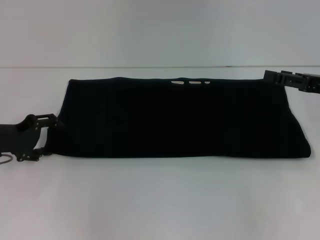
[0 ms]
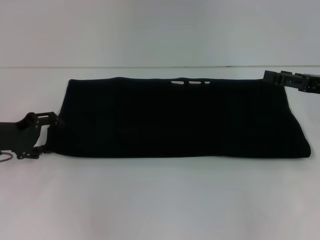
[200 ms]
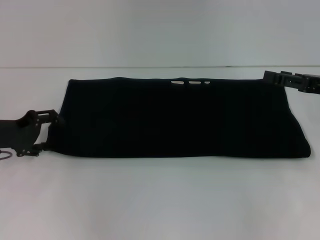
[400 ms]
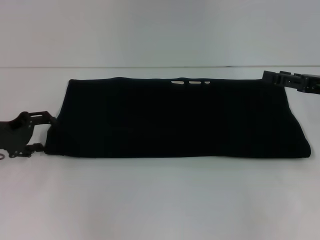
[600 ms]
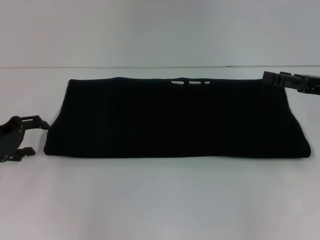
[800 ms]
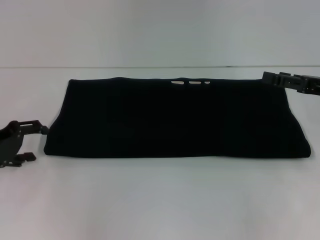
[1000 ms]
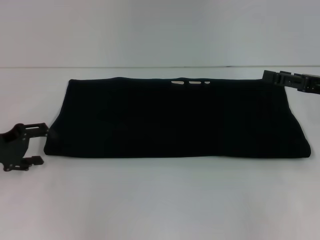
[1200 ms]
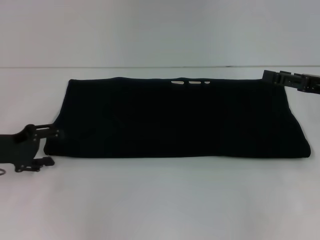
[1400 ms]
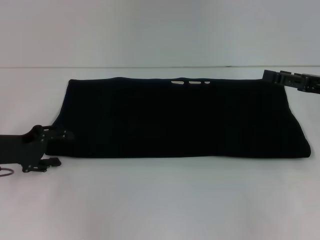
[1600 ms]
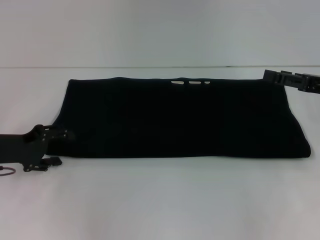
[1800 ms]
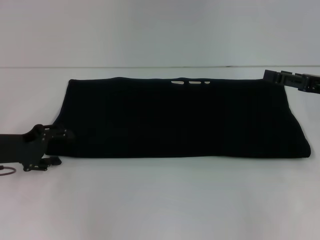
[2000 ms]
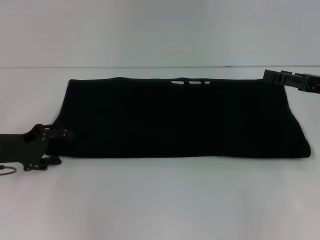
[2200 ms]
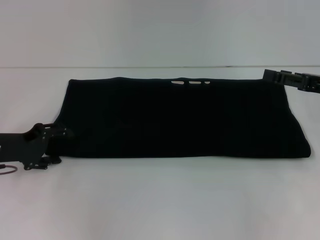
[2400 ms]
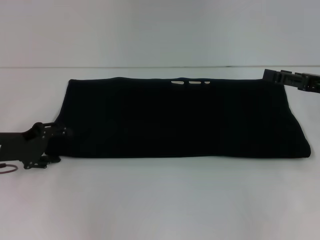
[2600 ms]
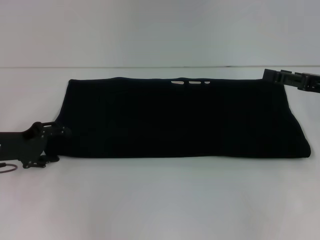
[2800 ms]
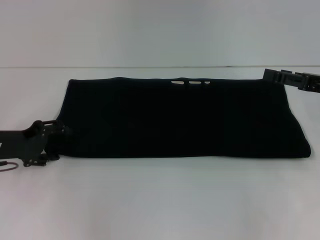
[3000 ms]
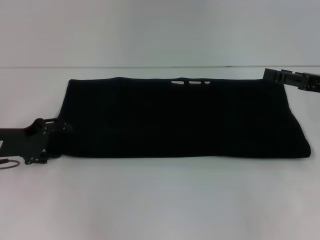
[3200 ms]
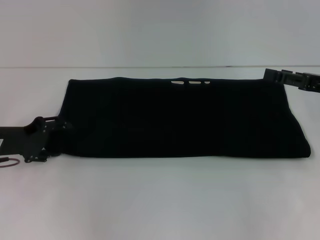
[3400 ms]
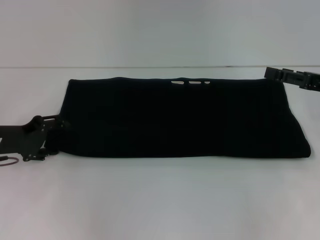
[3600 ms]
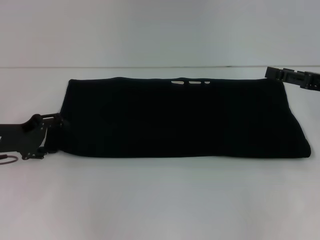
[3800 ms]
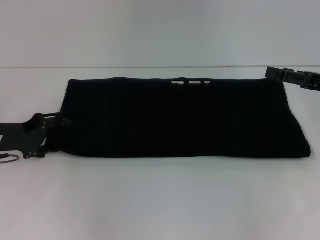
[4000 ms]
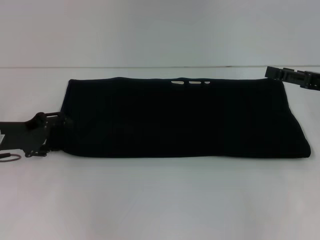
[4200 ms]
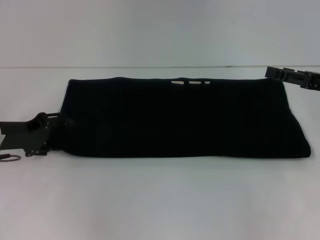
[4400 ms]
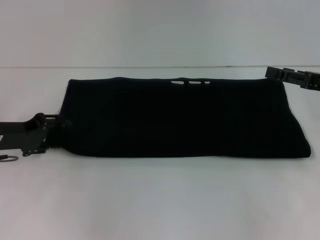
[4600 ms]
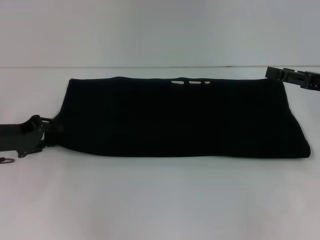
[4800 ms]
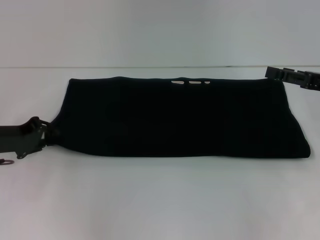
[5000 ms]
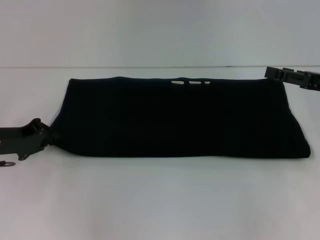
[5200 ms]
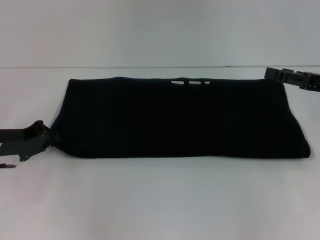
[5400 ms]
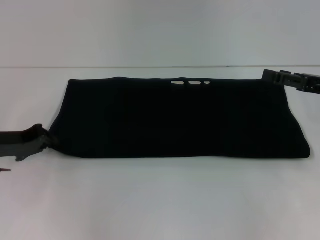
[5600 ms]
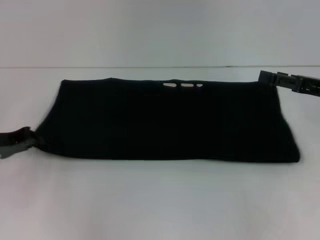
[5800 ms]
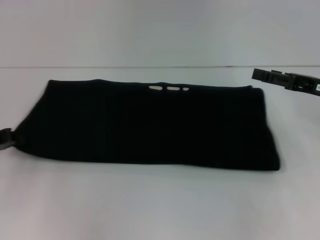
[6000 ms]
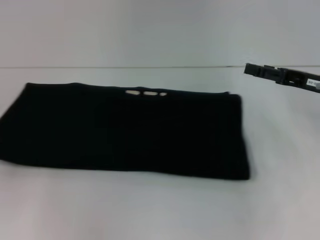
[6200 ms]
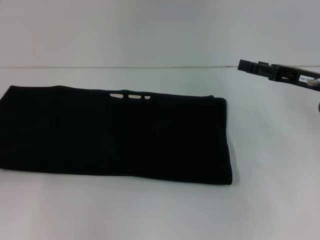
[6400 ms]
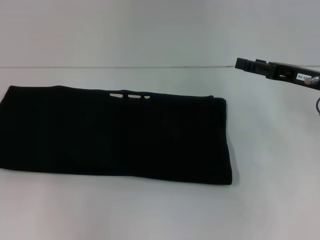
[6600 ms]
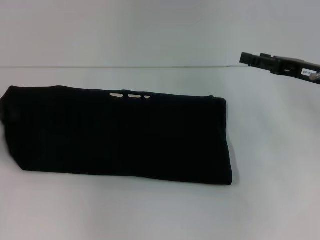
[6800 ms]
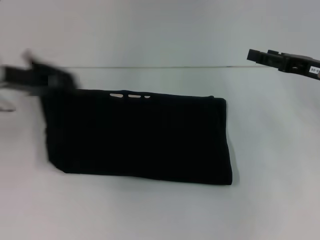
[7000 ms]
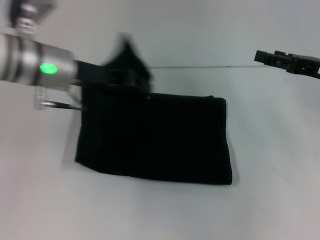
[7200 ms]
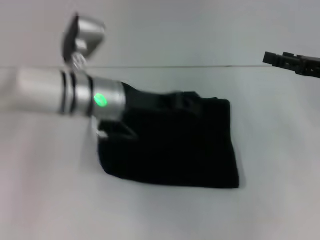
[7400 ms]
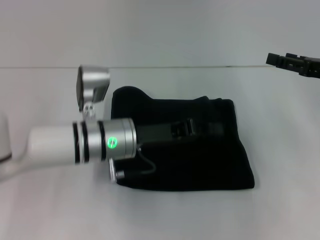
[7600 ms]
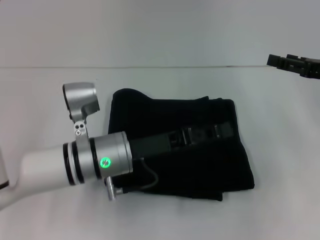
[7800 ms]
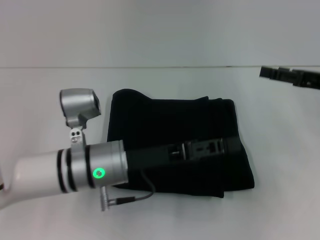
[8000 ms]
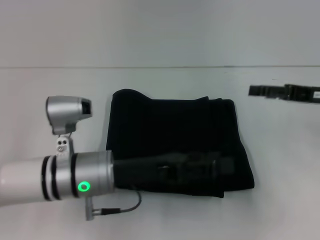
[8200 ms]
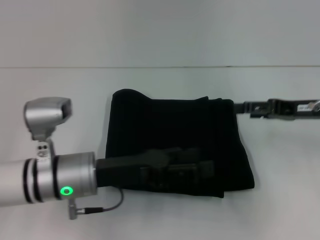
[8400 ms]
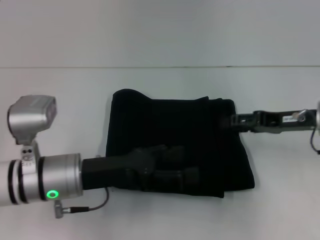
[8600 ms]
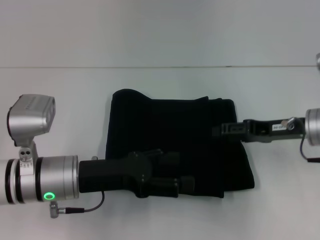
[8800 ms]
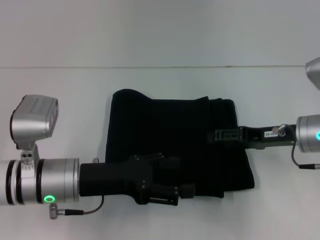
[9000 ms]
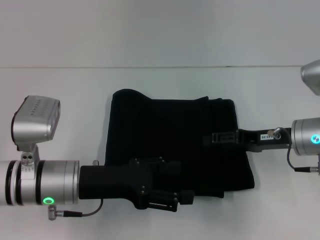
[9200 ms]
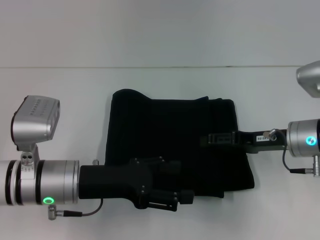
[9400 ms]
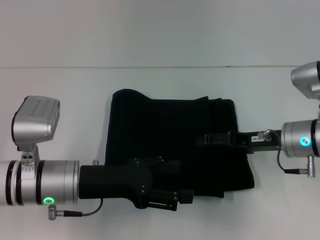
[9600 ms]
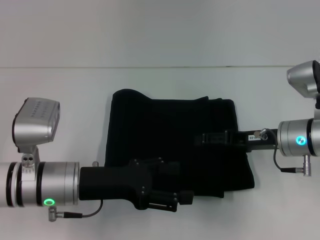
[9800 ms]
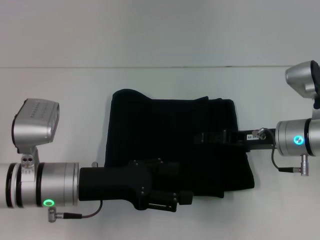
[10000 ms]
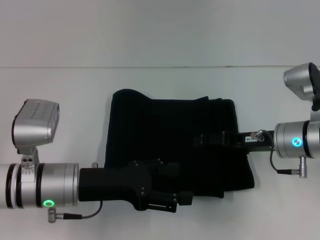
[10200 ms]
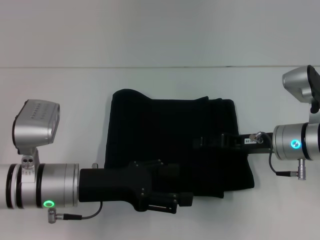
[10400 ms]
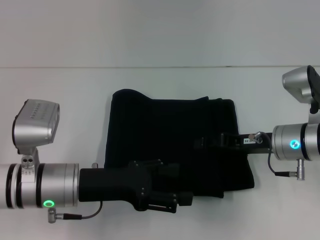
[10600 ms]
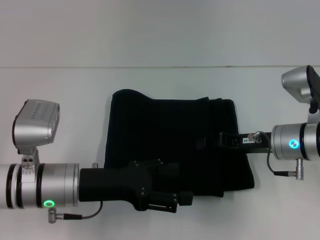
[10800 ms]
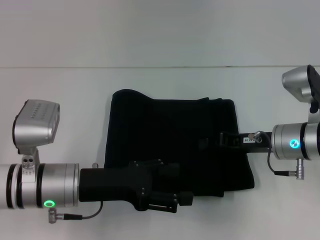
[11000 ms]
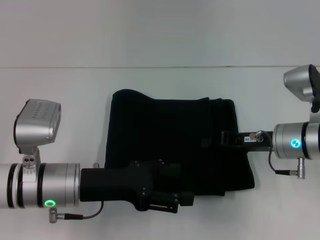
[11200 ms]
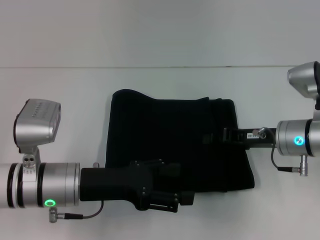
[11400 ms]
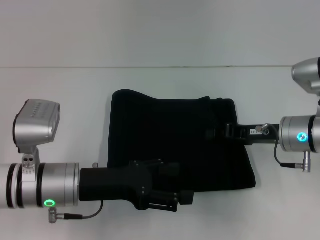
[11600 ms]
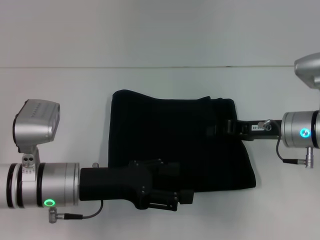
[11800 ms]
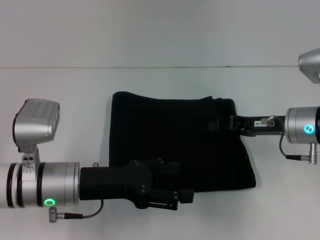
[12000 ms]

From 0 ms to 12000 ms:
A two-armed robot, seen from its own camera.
Step, from 0 ms to 7800 ms: Fold the clothes with your left hand.
From 0 ms to 1600 ms: The grippers stay close to where they were, moving slightly.
From 1600 ms to 3000 ms: Both grippers stay about where they are.
From 3000 ms to 4400 ms: There are only small adjustments of the grippers.
From 4400 ms to 6000 ms: The left gripper ends up roughly 5 cm from where it was, and closes up.
From 6000 ms to 7600 ms: The left gripper heads to the right, covering roughly 25 cm.
From 7600 ms to 9000 ms: The left gripper shifts about 10 cm to the left and backward, and opens its fingers; the right gripper goes some 10 cm to the left and downward.
From 9000 ms to 10400 ms: There are only small adjustments of the grippers.
From 10400 ms to 12000 ms: The right gripper closes.

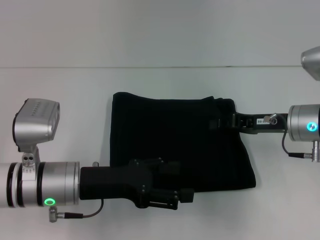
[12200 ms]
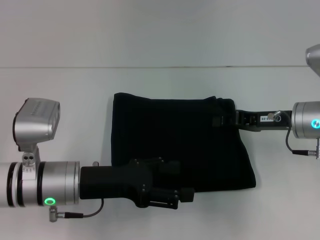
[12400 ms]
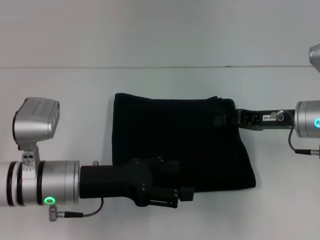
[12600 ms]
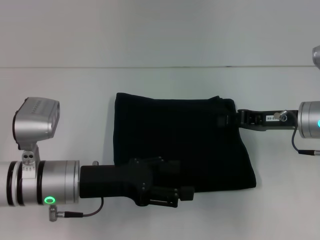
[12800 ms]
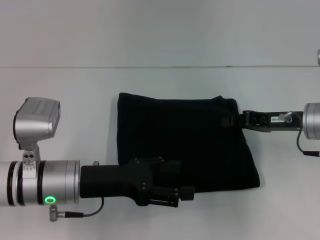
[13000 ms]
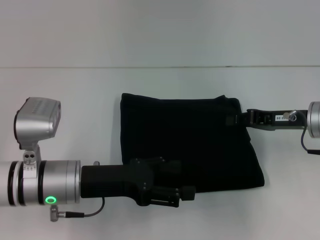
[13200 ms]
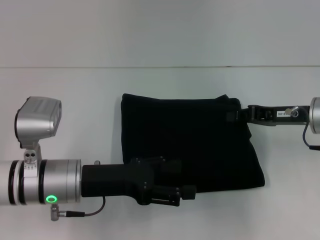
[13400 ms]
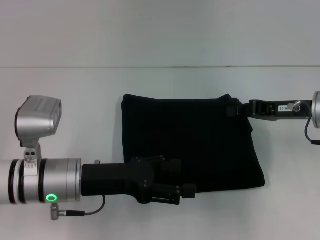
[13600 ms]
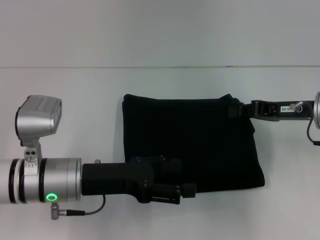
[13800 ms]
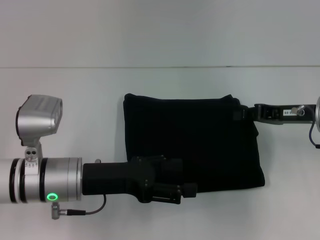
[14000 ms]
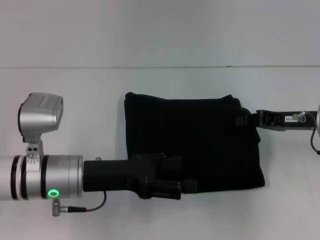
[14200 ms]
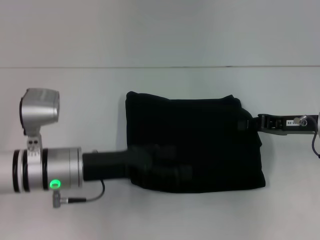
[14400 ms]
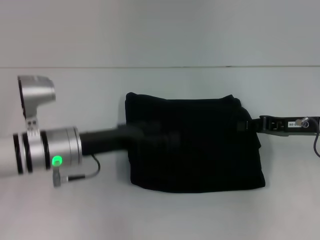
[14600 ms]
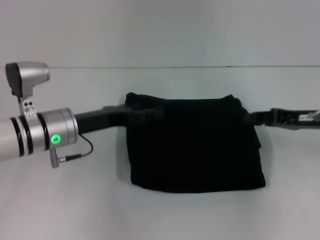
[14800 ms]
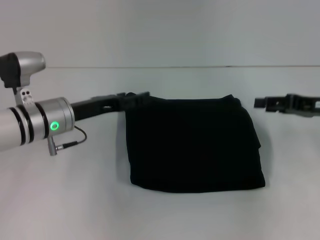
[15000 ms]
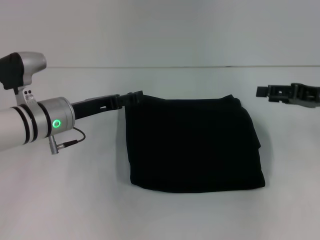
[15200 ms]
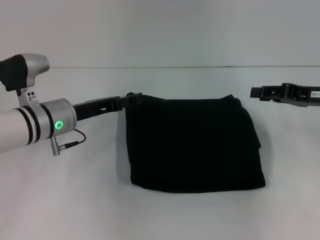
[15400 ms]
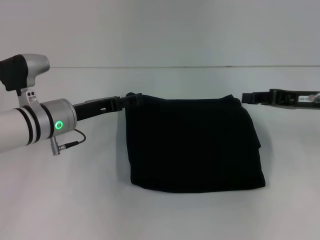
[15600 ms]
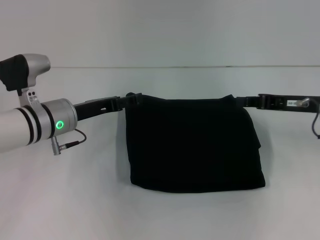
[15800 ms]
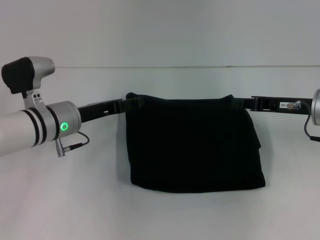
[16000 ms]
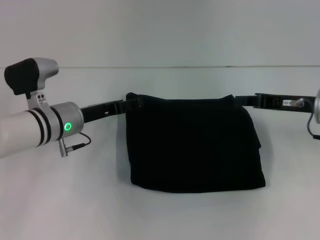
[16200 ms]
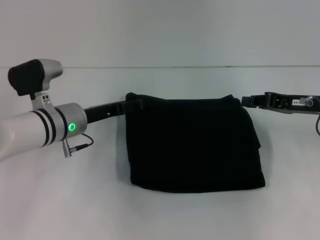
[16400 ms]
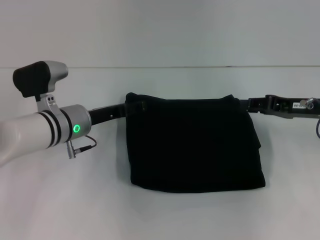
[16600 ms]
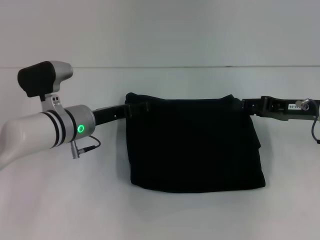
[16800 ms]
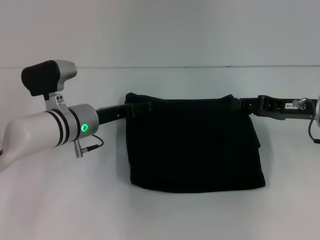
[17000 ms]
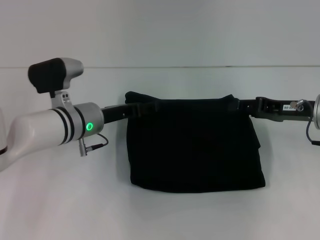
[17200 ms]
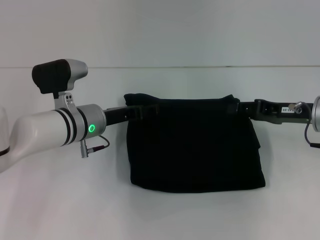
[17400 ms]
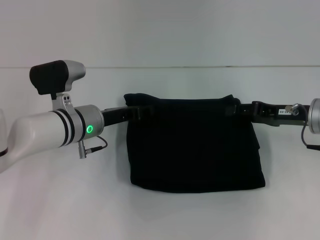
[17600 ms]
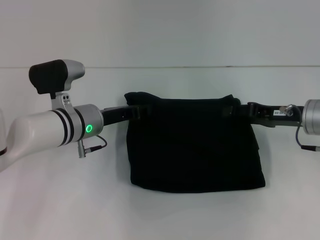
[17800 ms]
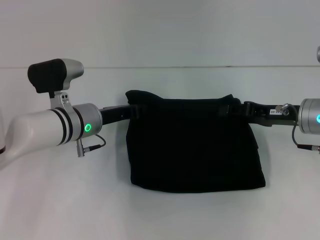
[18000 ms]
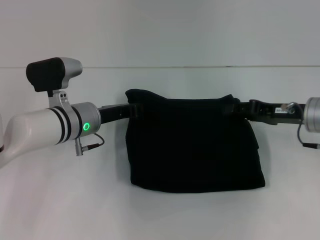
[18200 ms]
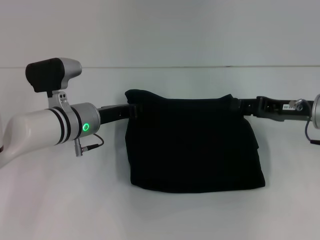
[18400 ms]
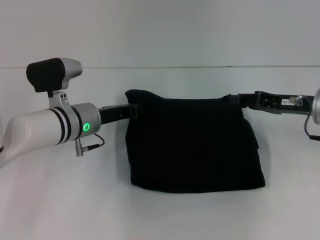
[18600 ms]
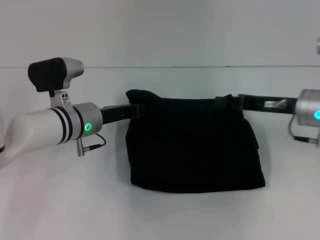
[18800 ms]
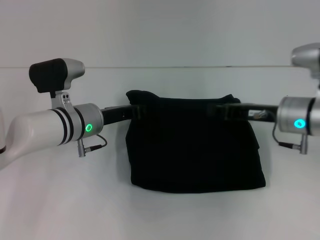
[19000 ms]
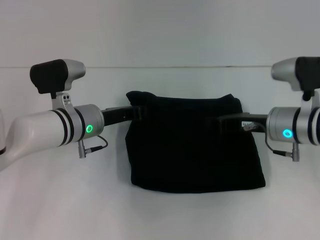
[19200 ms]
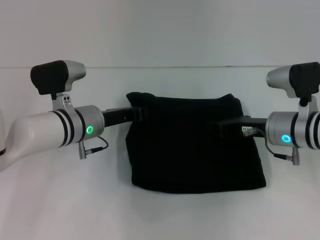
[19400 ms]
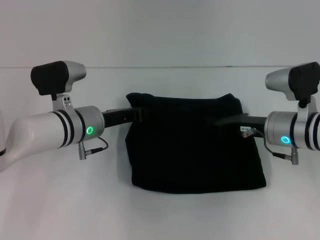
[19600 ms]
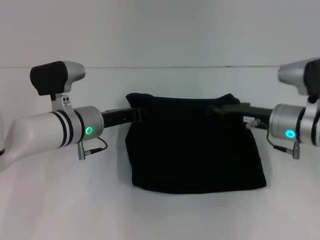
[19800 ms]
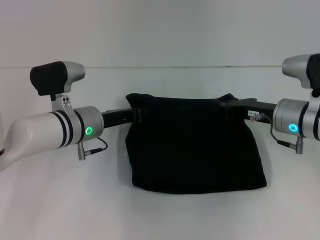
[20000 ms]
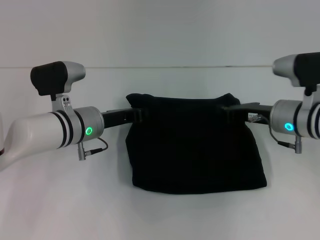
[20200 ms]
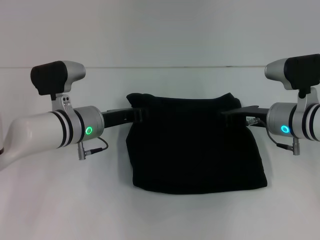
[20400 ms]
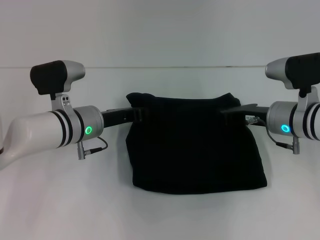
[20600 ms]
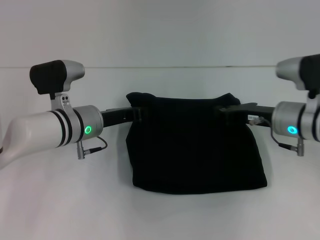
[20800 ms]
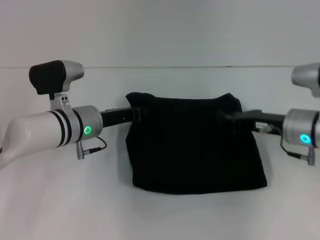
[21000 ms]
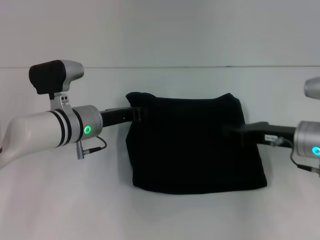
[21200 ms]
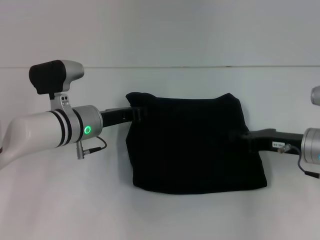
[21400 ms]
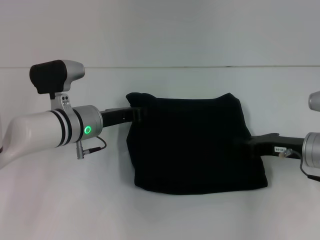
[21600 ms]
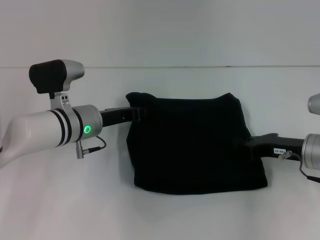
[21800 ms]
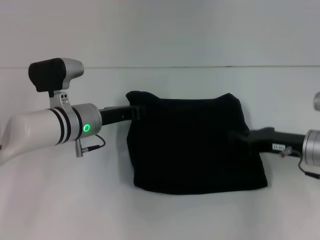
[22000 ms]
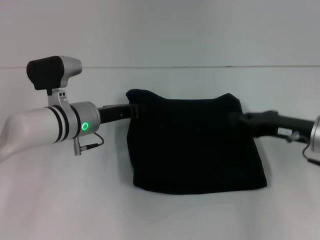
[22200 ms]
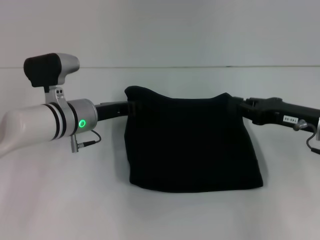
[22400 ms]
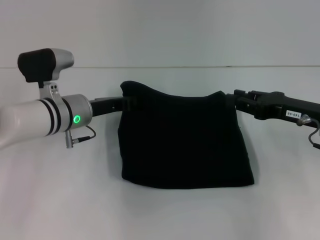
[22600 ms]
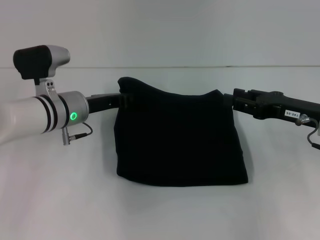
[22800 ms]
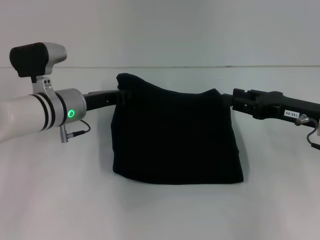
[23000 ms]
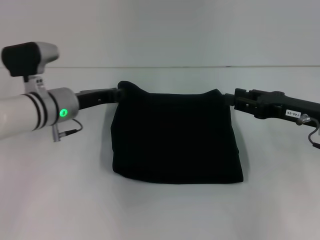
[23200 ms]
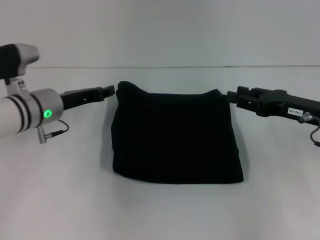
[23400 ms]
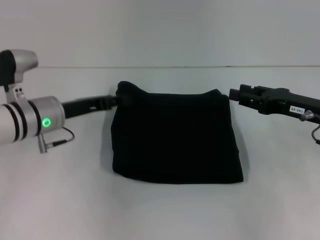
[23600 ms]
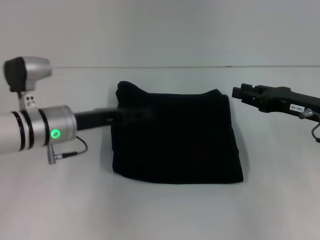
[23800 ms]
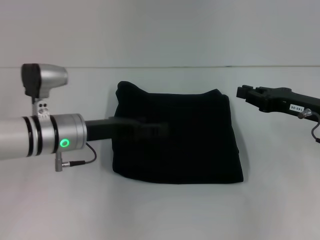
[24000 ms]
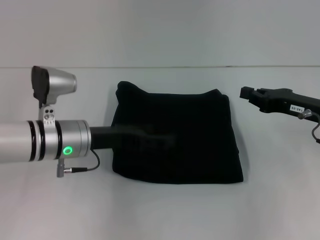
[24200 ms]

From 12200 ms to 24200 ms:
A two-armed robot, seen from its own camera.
From 12200 ms to 13800 ms: The grippers move only a little.
From 13800 ms to 15200 ms: The right gripper shifts approximately 5 cm to the right, and opens its fingers; the left gripper is displaced forward by some 10 cm.
From 15200 ms to 16600 ms: The right gripper closes its fingers.
From 16600 ms to 18200 ms: The left gripper closes its fingers; the right gripper opens its fingers.
From 18200 ms to 19800 ms: The right gripper moves about 5 cm, and closes.
From 19800 ms to 21200 ms: There are only small adjustments of the grippers.
From 21200 ms to 22600 ms: The grippers make only small movements.
From 22600 ms to 24200 ms: The right gripper opens and closes again; the left gripper travels backward by roughly 5 cm, and opens up.
